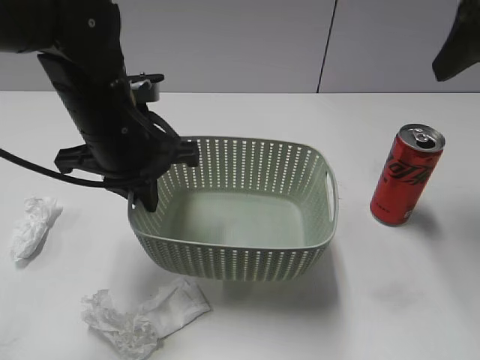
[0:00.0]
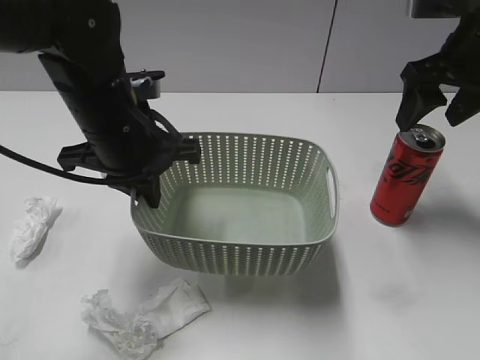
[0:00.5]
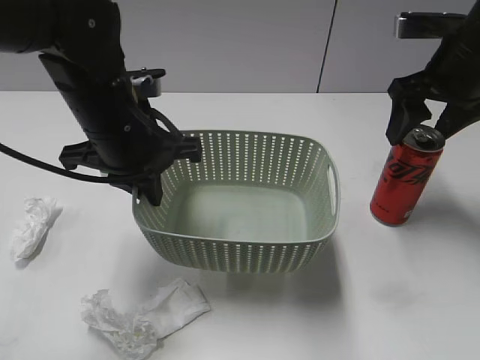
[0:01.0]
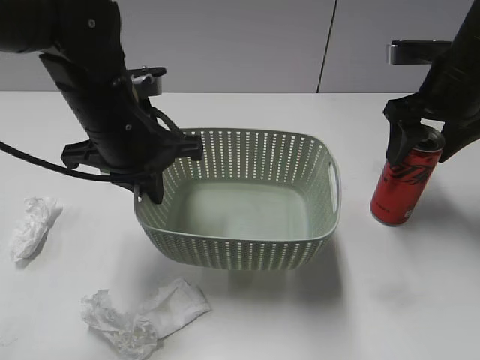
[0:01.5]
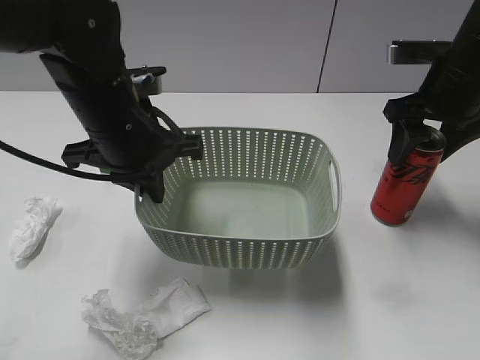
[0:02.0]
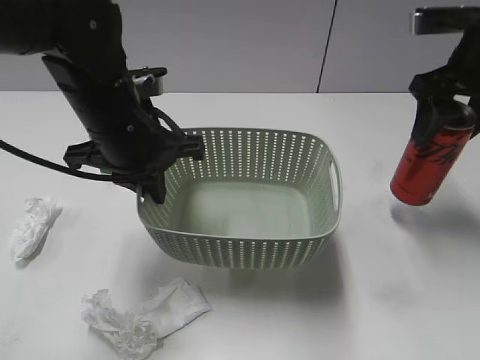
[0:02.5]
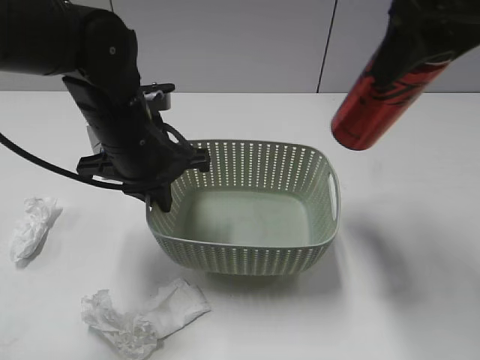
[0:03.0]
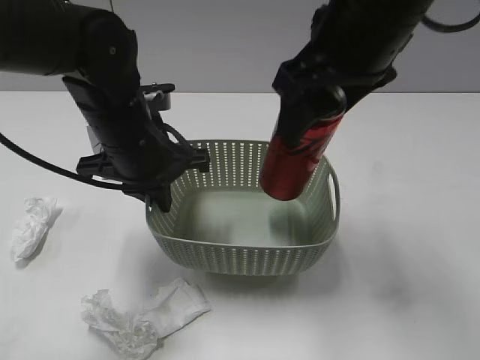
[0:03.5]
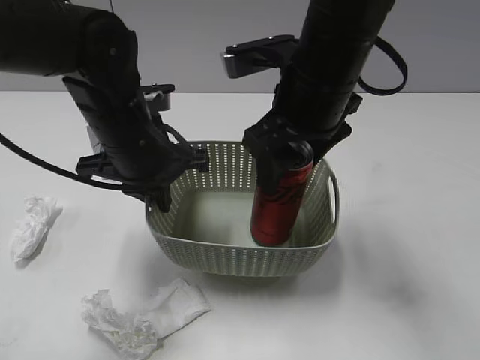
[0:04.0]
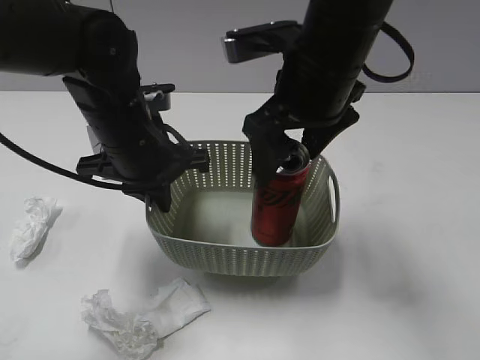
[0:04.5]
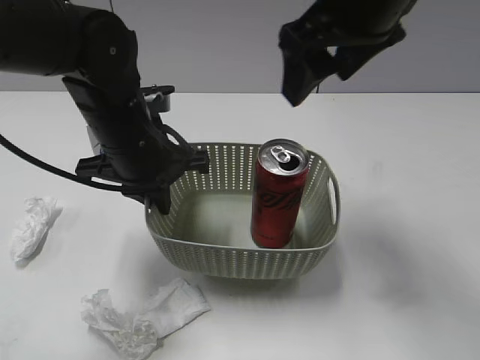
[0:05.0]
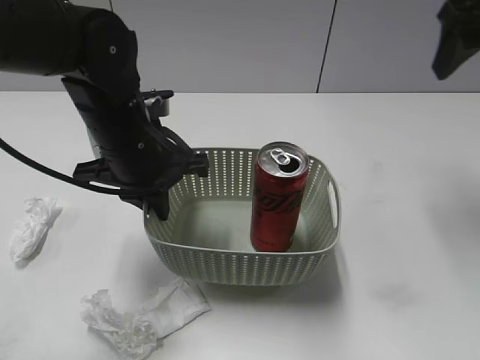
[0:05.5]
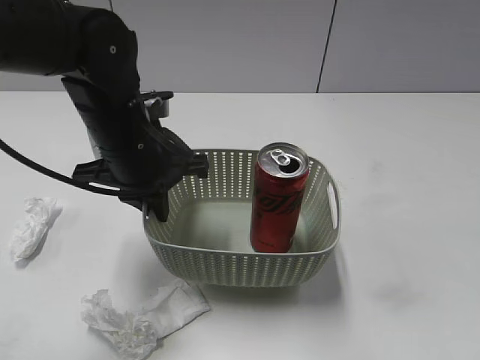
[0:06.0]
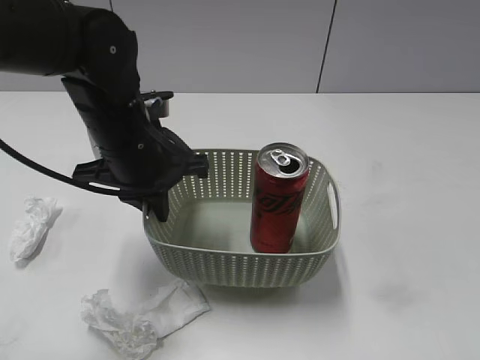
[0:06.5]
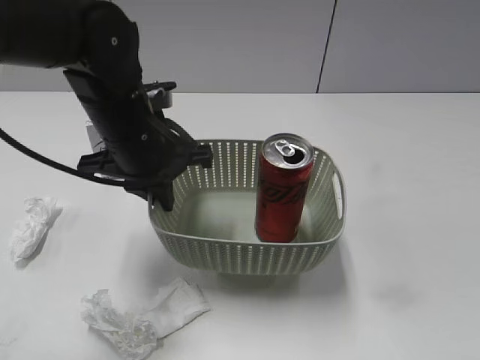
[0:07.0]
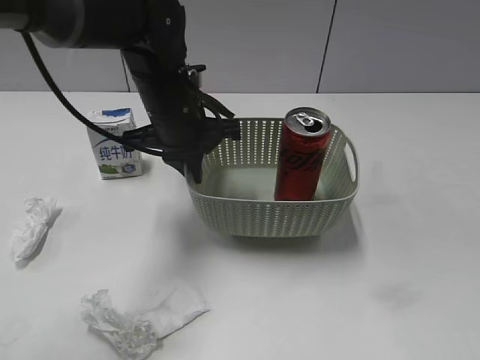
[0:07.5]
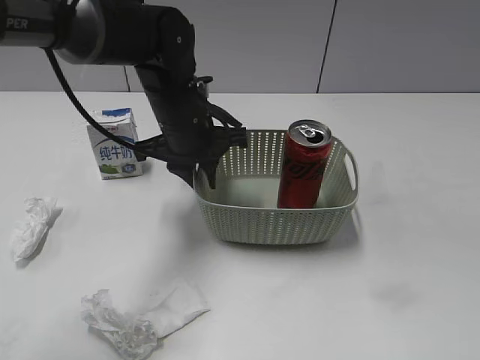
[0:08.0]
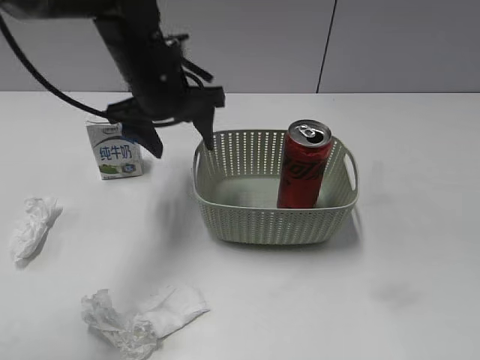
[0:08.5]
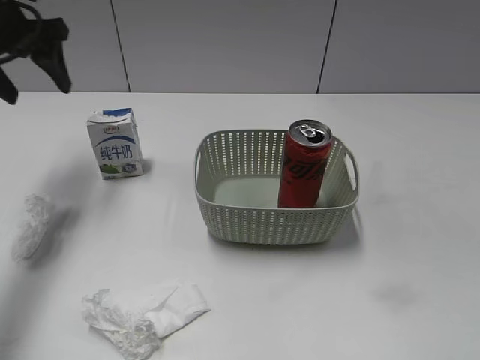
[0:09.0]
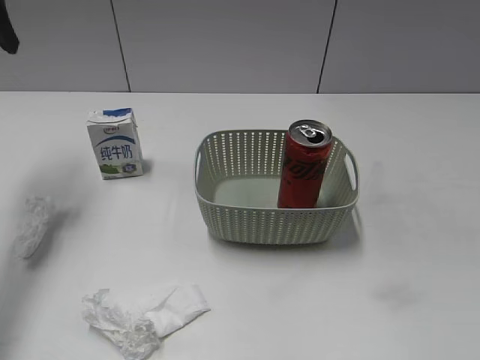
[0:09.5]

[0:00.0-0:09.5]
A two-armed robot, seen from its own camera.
Step, 0:00.0 to 0:02.0: Grasp the cola can with right gripper.
Step, 0:02.5 to 0:04.5: Place the cola can in the basket with right gripper.
Step, 0:05.0 to 0:08.0: Place the basket on the table with left gripper.
0:00.0 to 0:02.0: The right gripper moves downward and forward, some 15 cm, and closes up.
0:02.0 to 0:04.0: The right gripper heads to the left and backward, covering approximately 20 cm.
0:04.0 to 0:05.5: The right gripper goes roughly 20 cm to the right and upward, and opens up.
0:05.5 to 0:07.5: The right gripper moves backward, some 35 cm, while the left gripper travels forward by roughly 5 cm.
0:07.5 to 0:09.5: The left gripper goes about 25 cm to the left and upward, and opens.

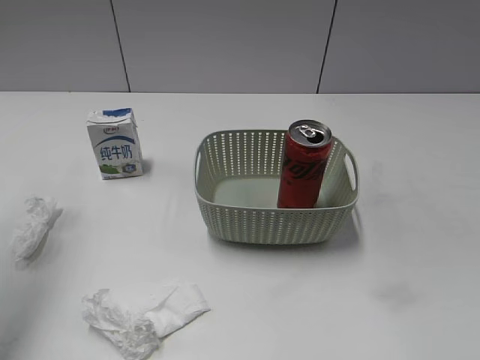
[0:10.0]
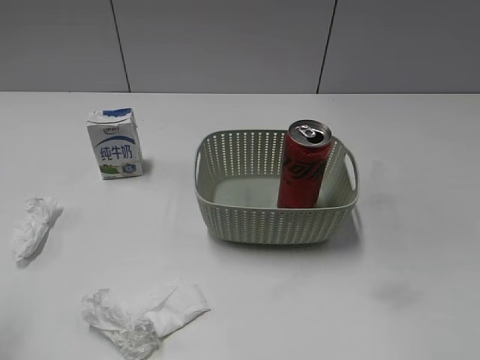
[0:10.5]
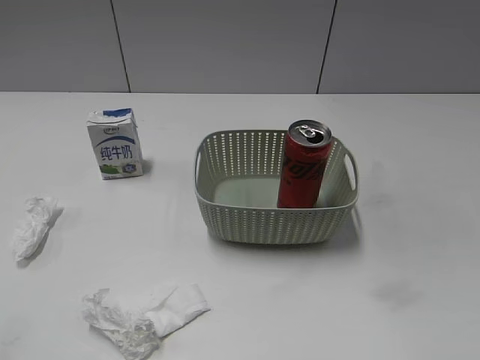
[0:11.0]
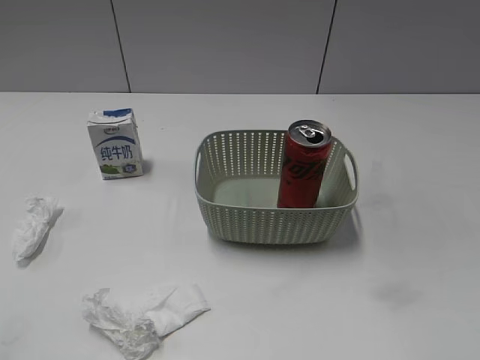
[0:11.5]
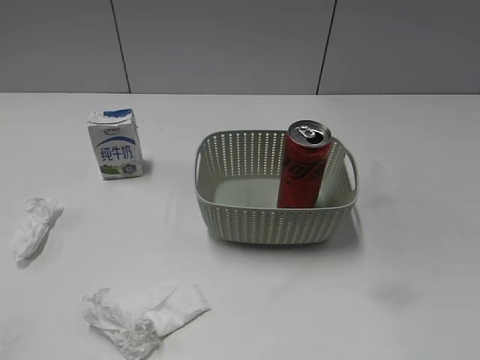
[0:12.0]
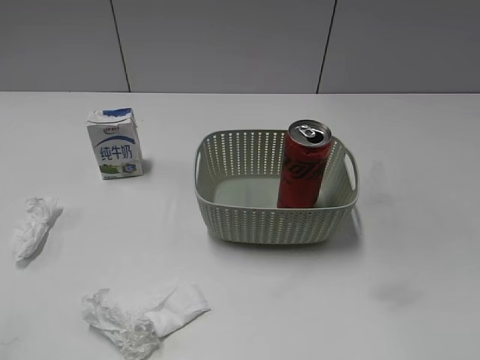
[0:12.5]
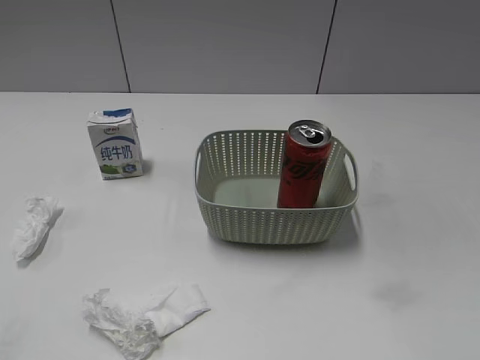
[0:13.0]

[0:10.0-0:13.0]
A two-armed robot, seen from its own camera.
0:10.0 to 0:11.5: The left gripper moves backward and downward, roughly 30 cm.
